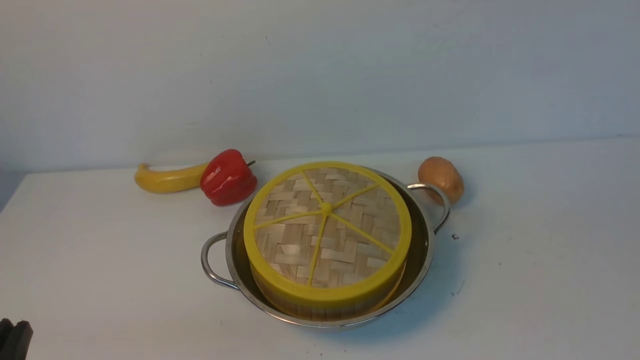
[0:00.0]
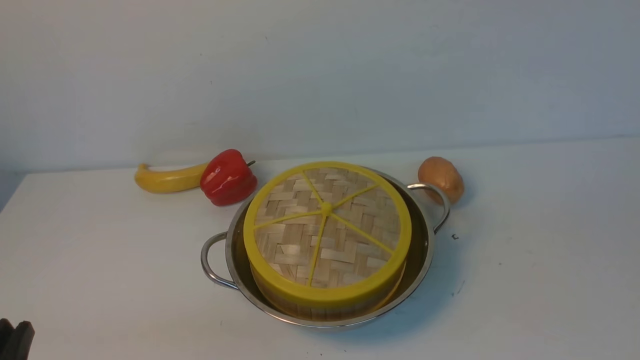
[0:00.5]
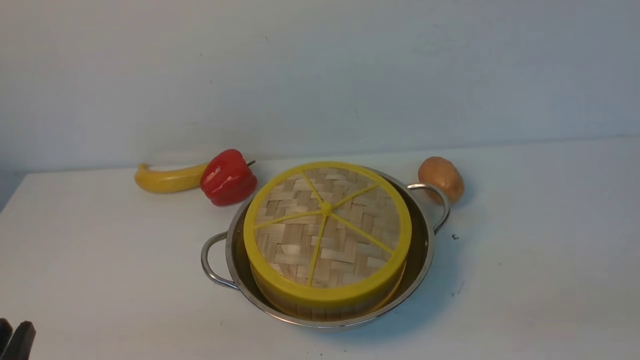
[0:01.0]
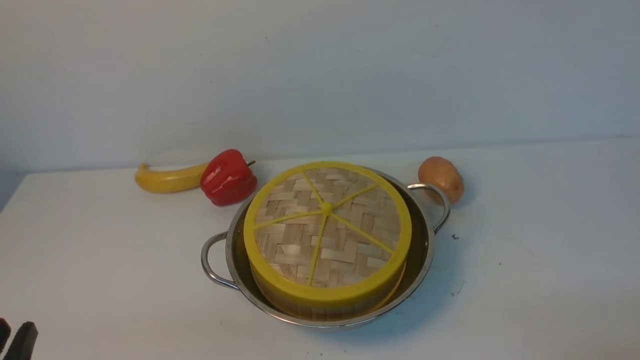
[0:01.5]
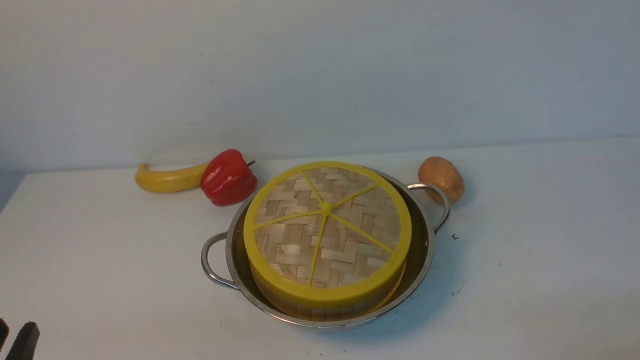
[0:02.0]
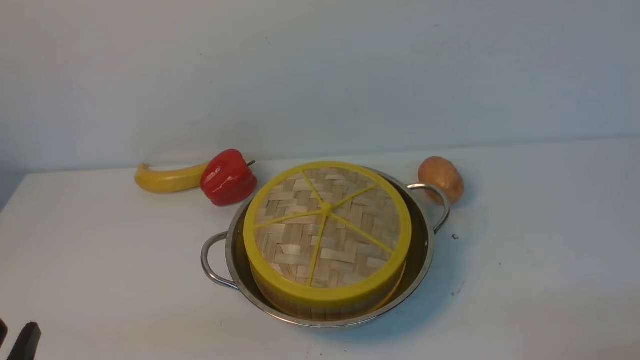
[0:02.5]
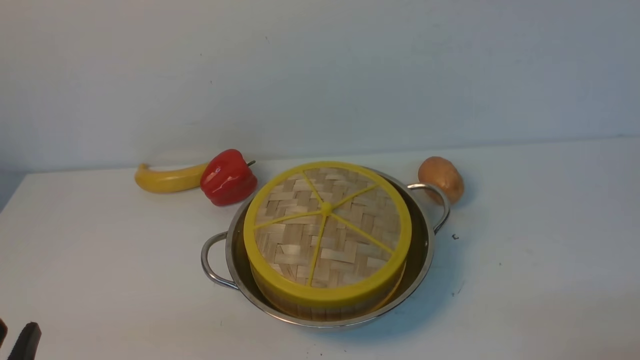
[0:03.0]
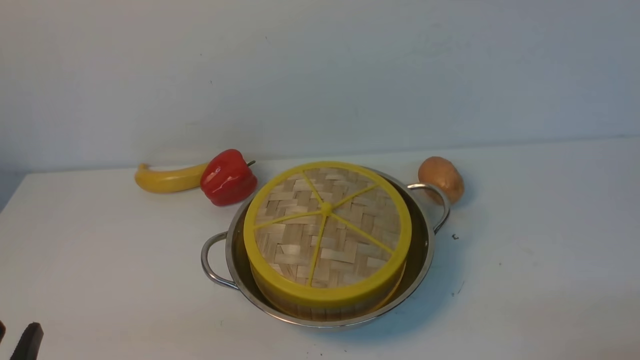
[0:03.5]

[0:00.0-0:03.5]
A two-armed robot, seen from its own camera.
Task of the whole recording: place the steamer in the pot on the white table, and put the lid on the steamer.
0:02.0 to 0:03.5: The two grippers keep their place.

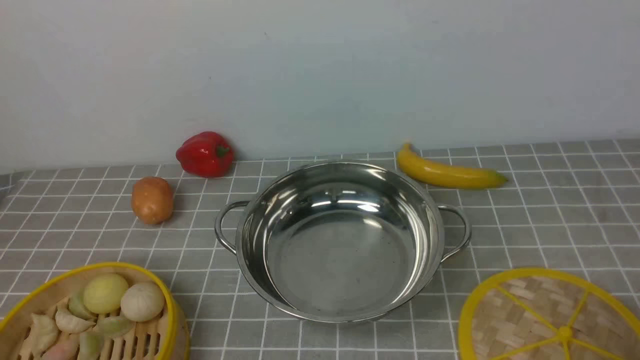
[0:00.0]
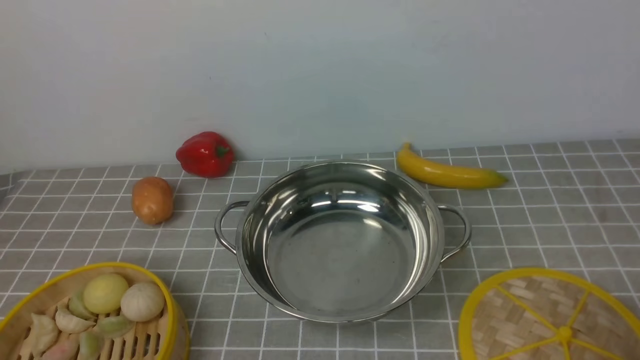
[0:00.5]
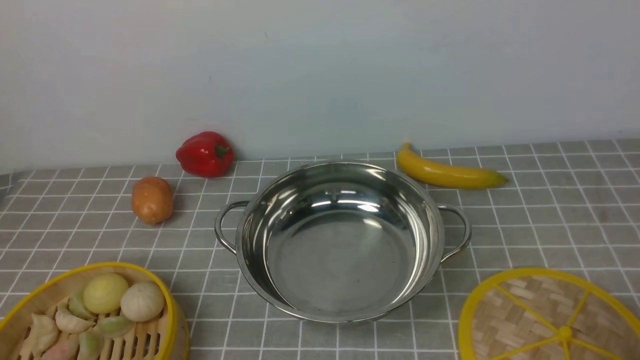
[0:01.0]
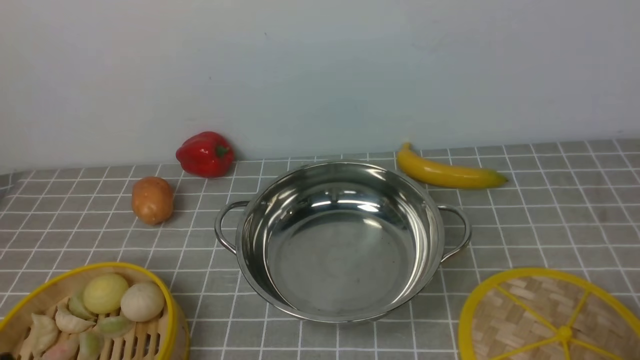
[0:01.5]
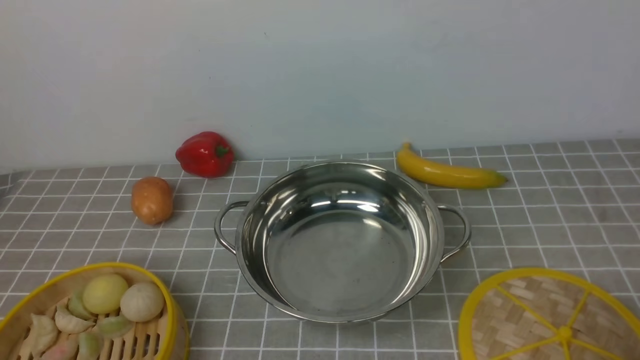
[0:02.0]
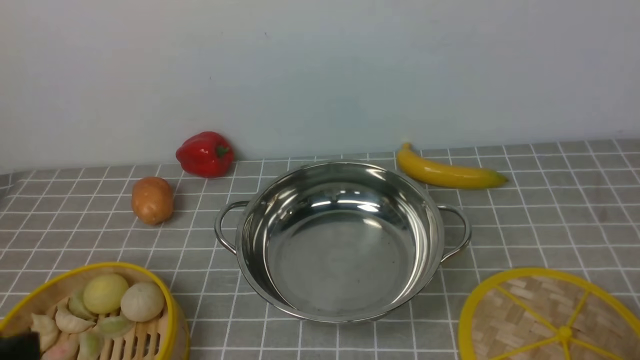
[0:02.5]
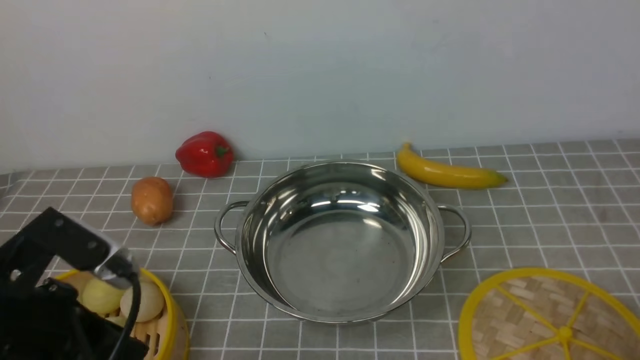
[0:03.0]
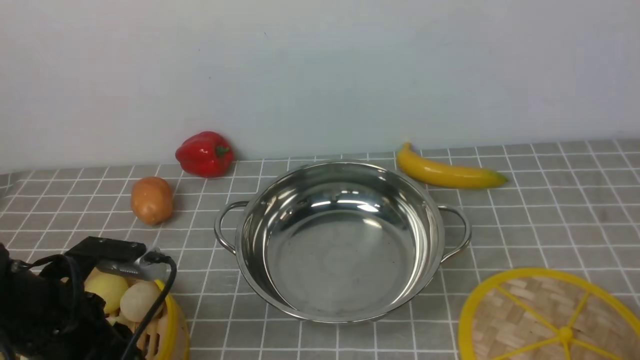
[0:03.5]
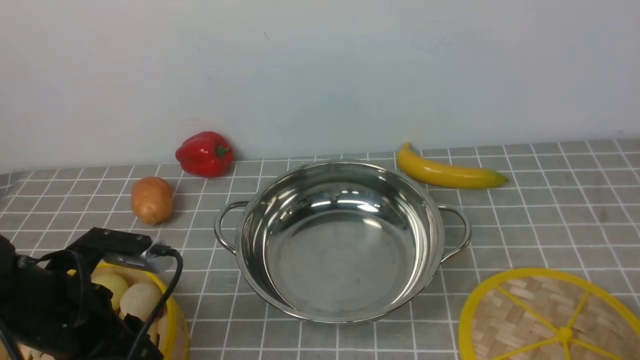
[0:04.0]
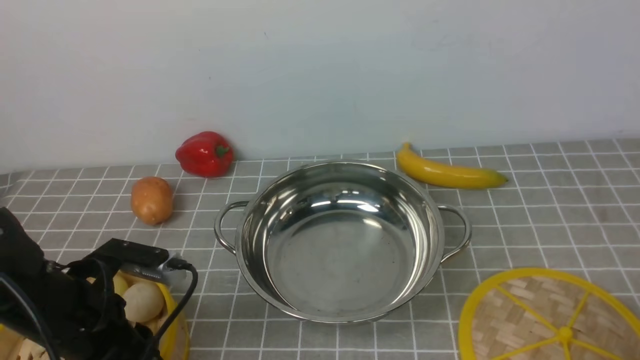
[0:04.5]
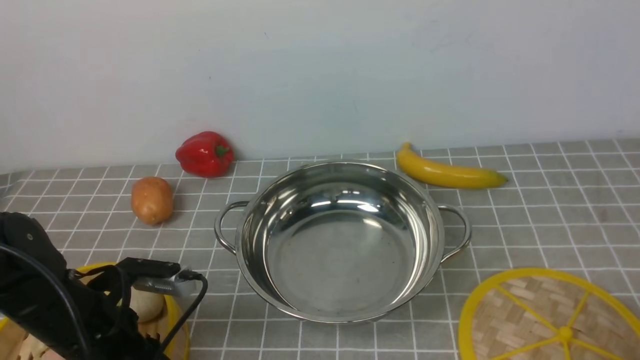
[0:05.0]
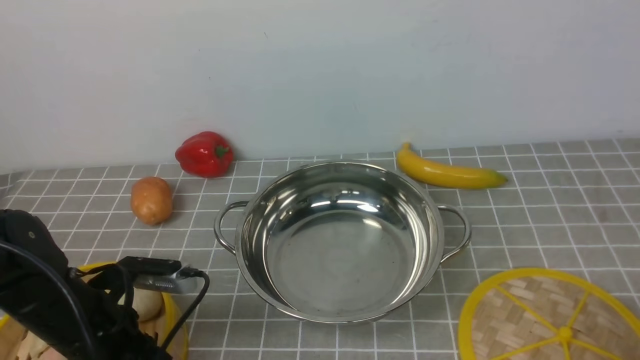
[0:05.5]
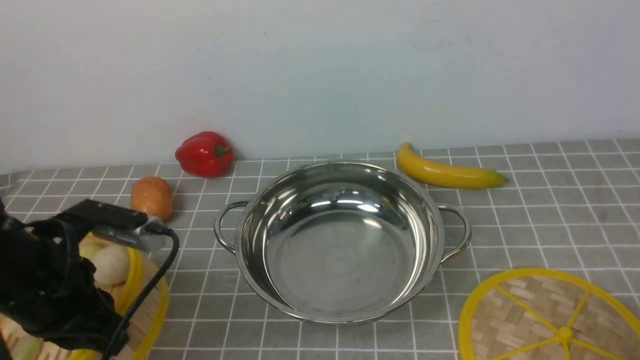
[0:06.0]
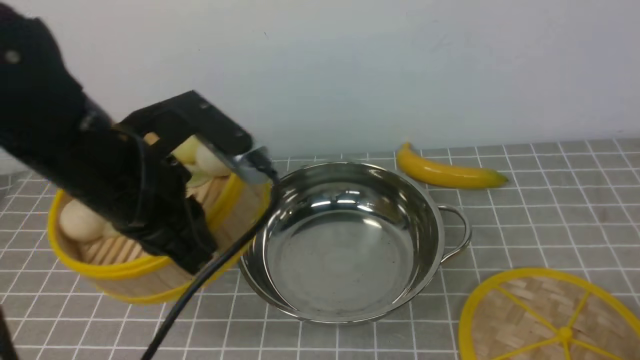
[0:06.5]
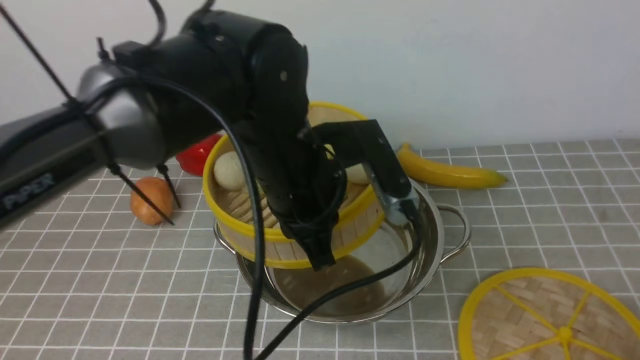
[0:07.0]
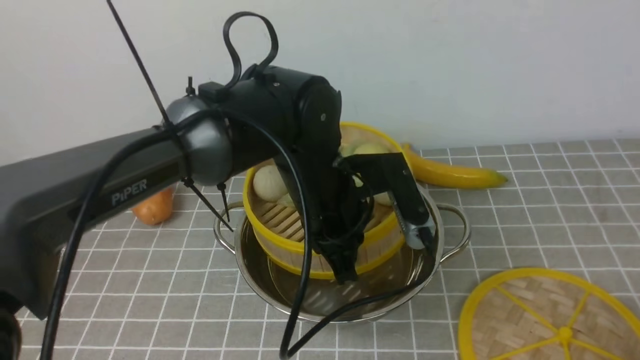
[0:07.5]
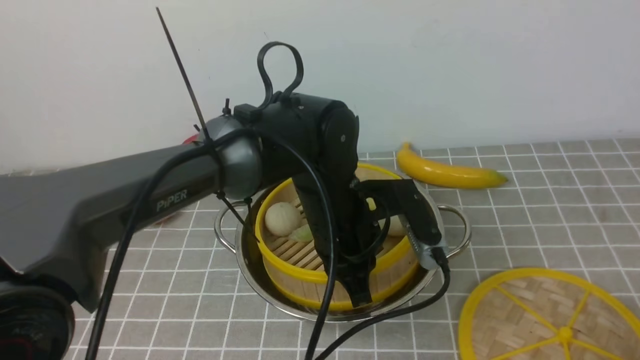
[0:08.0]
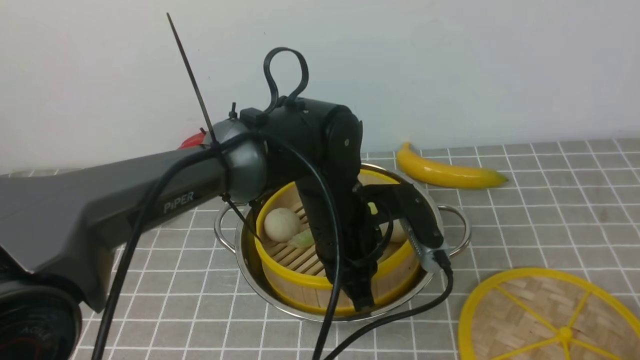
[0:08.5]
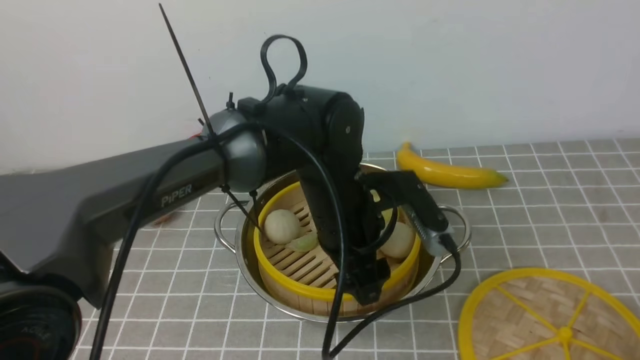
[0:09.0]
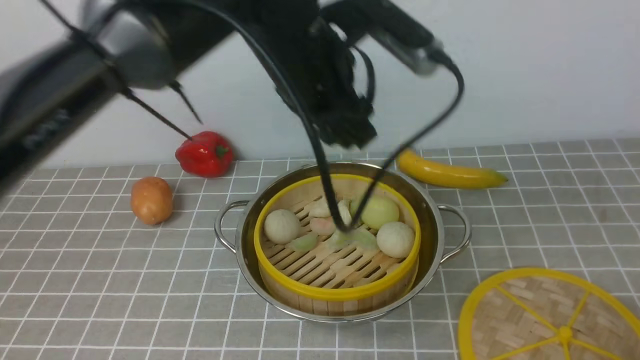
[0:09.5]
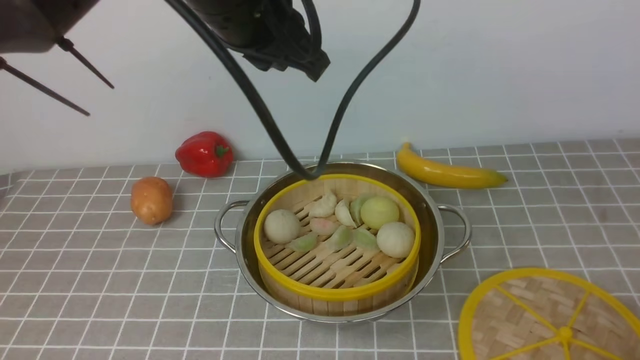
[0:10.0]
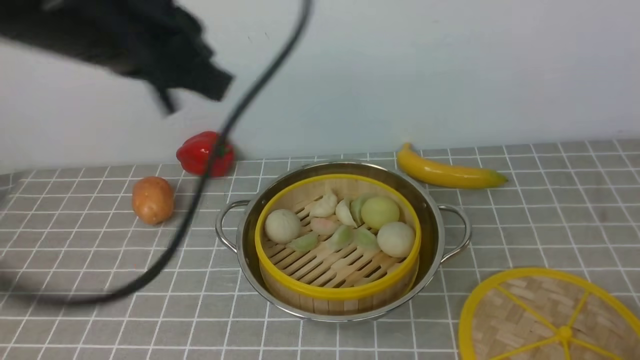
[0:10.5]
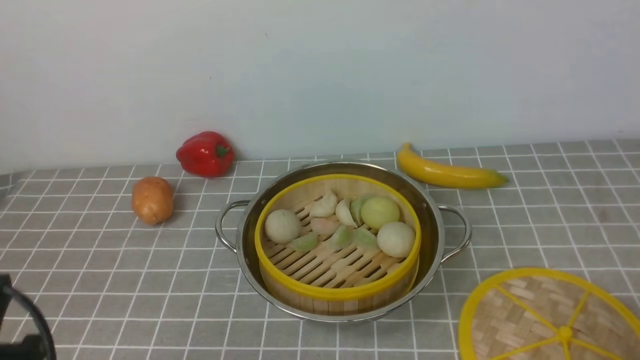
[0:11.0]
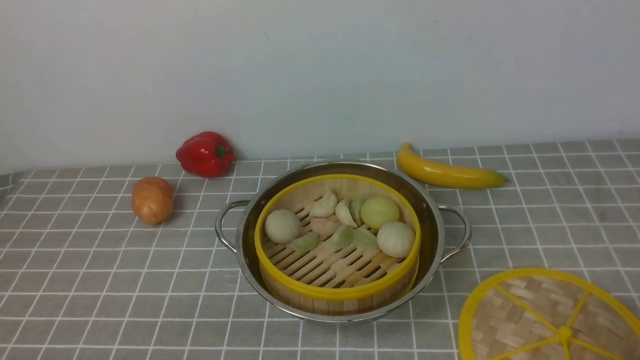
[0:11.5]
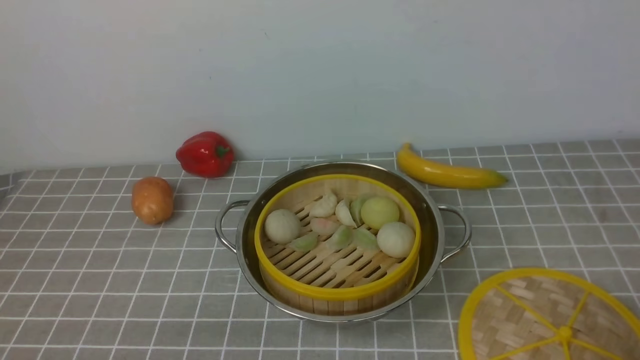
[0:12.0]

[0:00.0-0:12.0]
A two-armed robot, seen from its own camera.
Task of the whole recording: place the steamer in the pot on the grey tablecloth, and put the lid on the steamer.
Step, 0:00.0 to 0:05.5: use the left arm to lift the steamer closest to it.
Step, 0:06.0 to 0:09.0: use the left arm to put the steamer into the iron steamer pot in the middle.
0:02.0 to 0:04.0: The left gripper travels forward by roughly 15 cm.
0:04.0 to 0:06.0: The left gripper shifts by roughly 5 cm, and closes up.
0:06.0 to 0:08.0: The left gripper is displaced to the right by about 25 cm.
0:08.0 to 0:10.0: The left gripper goes roughly 20 cm upward, and opens and closes again.
0:10.0 to 0:12.0: The left gripper is displaced backward, downward and to the left by about 40 cm.

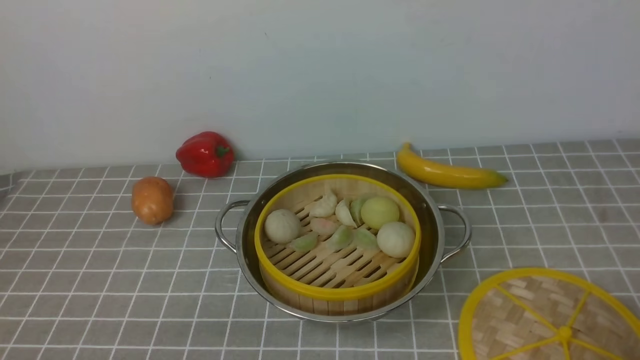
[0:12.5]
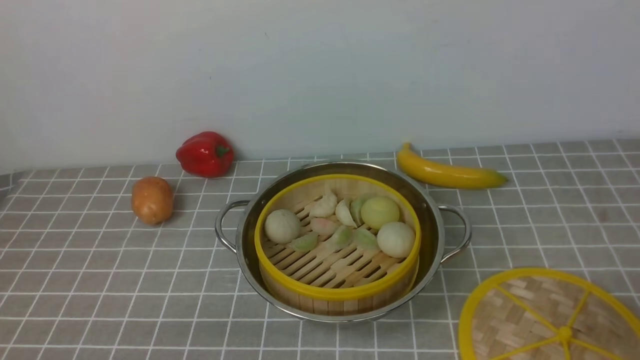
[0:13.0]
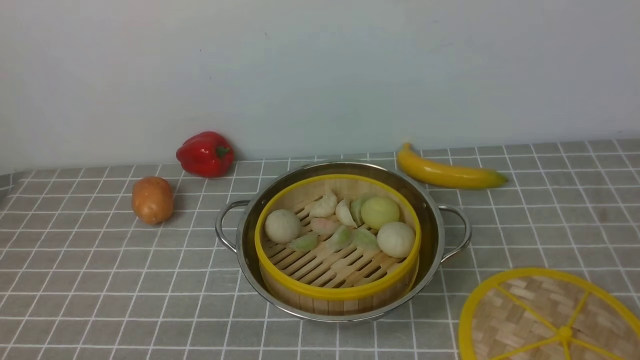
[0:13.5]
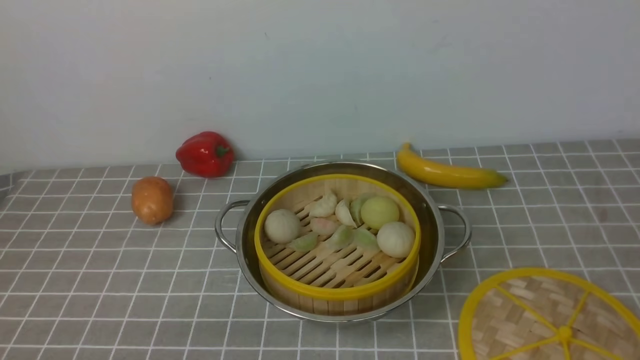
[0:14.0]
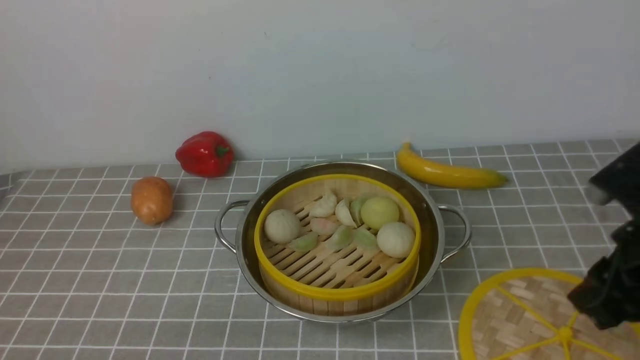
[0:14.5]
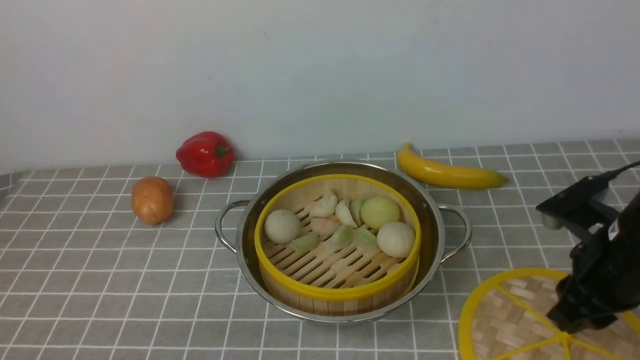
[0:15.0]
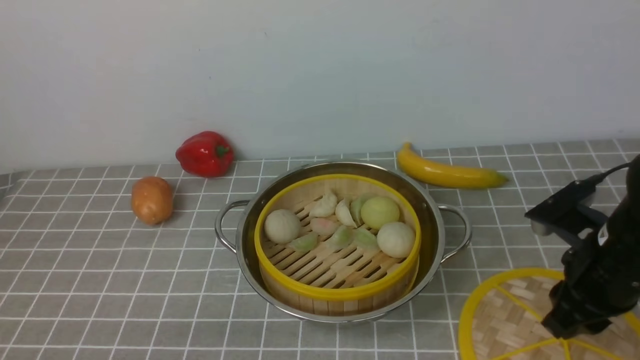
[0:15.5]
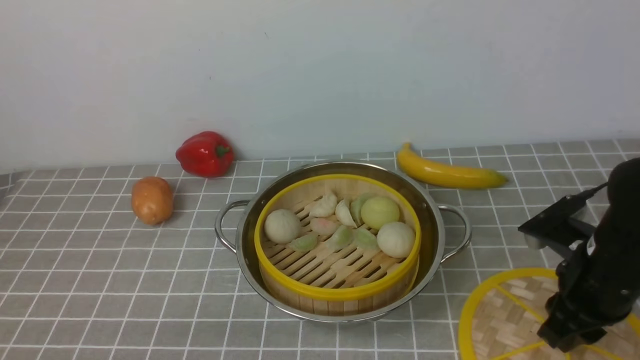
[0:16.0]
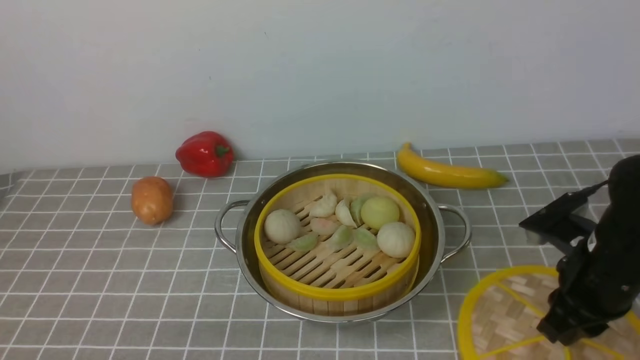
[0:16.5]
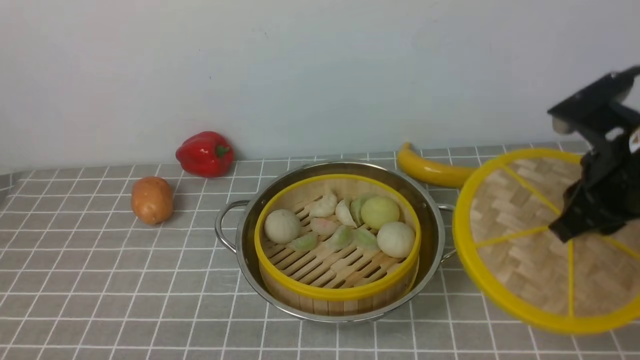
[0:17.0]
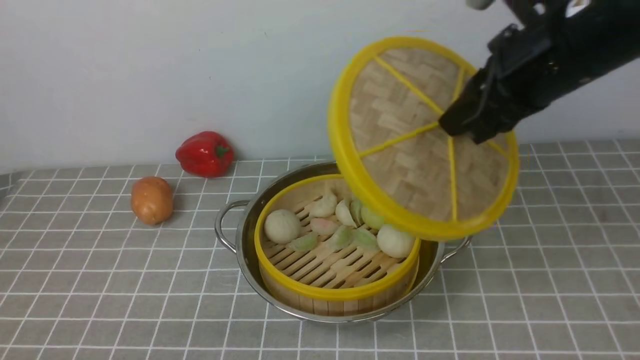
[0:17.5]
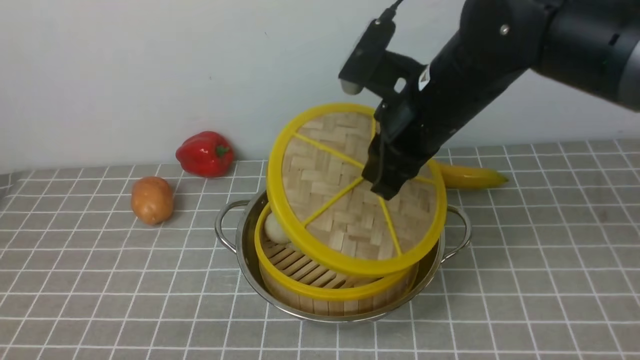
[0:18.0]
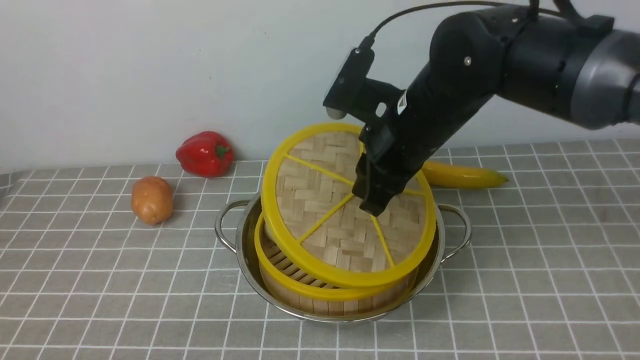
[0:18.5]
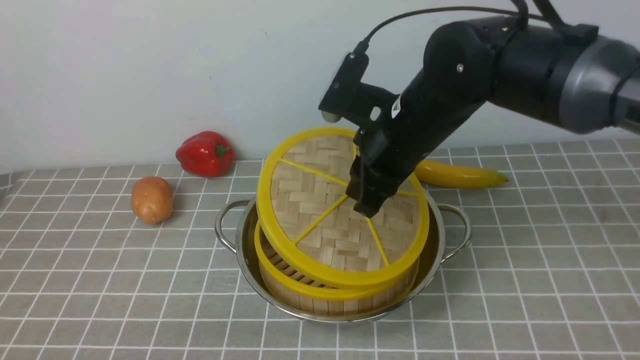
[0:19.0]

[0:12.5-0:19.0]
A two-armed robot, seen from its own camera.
Task of the whole recording: place the steamer in the pot on the grey tablecloth, and put the lid on the steamer.
Step, 0:12.5 to 0:16.5: use the right arm to lift the lid of the steamer.
0:12.5 to 0:14.5: The right gripper is displaced forward and upward by roughly 20 cm.
0:14.5 to 0:17.0: The right gripper goes roughly 5 cm forward, and closes.
0:17.0 to 0:19.0: The right gripper heads to the left and forward, covering approximately 20 cm.
